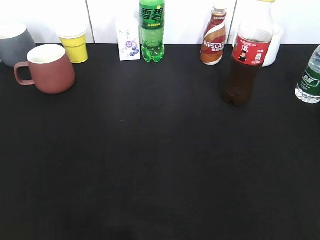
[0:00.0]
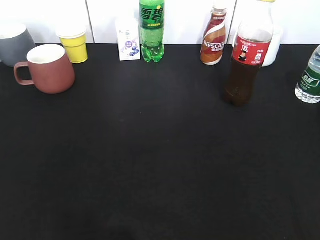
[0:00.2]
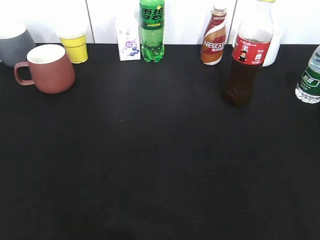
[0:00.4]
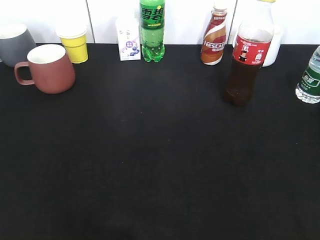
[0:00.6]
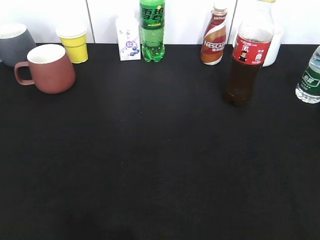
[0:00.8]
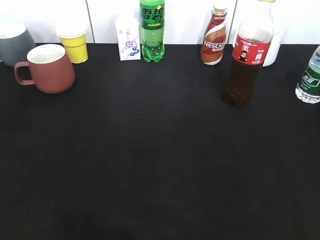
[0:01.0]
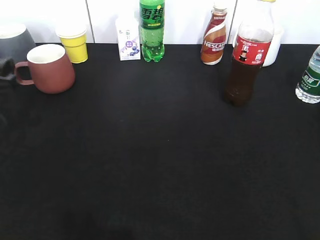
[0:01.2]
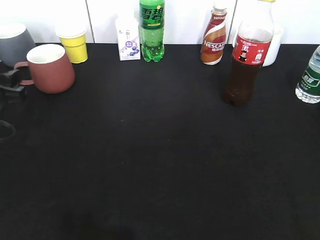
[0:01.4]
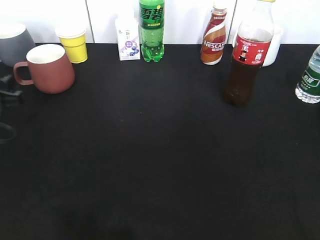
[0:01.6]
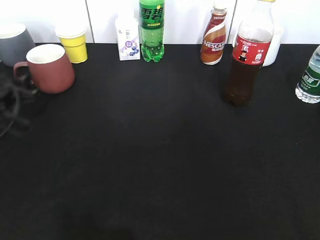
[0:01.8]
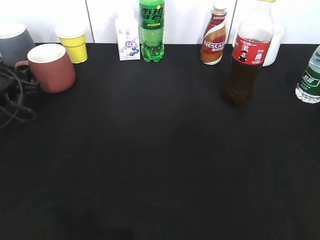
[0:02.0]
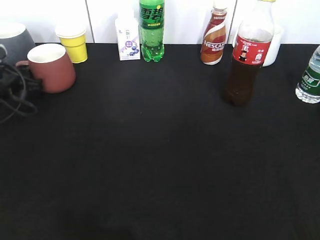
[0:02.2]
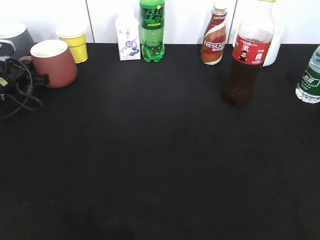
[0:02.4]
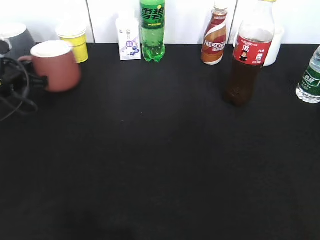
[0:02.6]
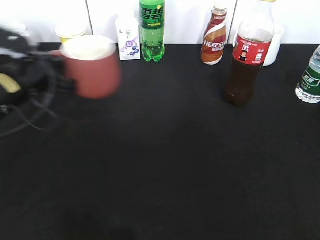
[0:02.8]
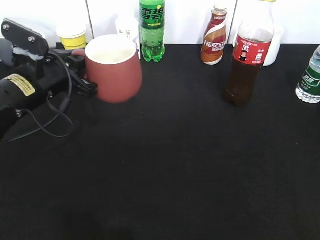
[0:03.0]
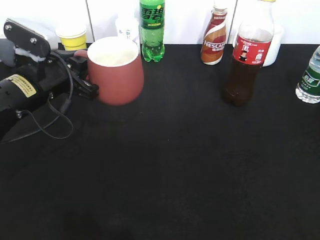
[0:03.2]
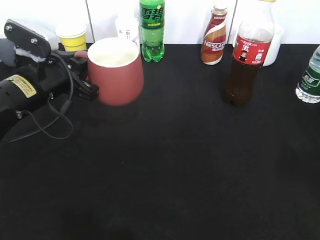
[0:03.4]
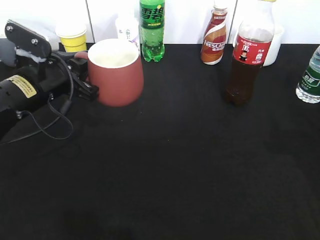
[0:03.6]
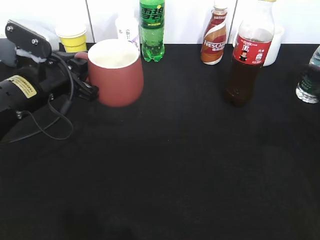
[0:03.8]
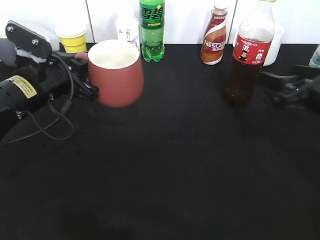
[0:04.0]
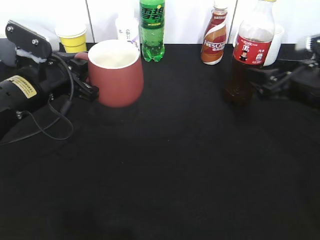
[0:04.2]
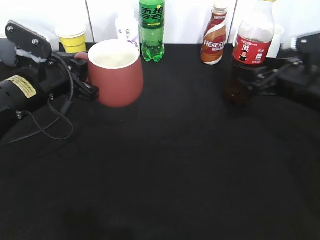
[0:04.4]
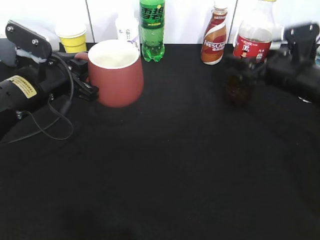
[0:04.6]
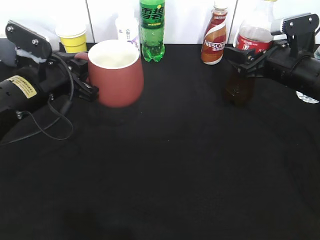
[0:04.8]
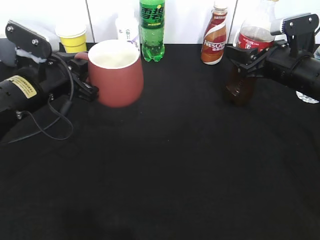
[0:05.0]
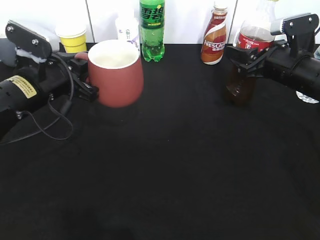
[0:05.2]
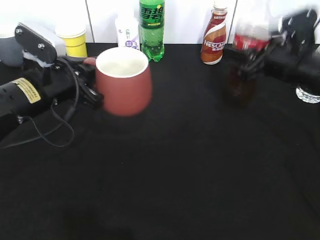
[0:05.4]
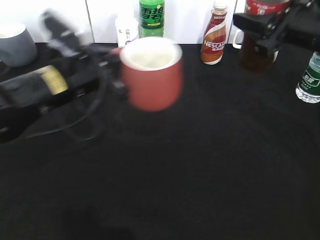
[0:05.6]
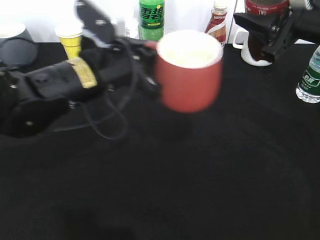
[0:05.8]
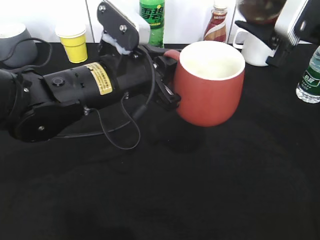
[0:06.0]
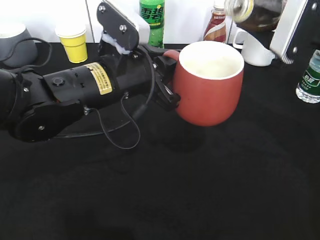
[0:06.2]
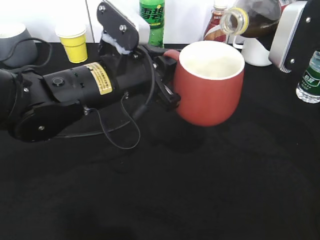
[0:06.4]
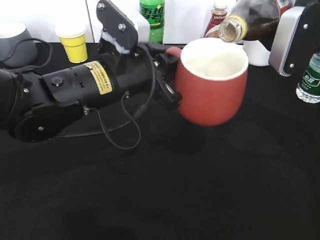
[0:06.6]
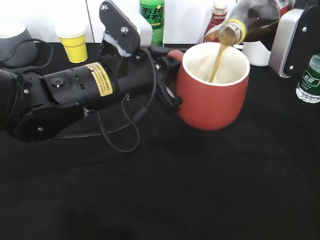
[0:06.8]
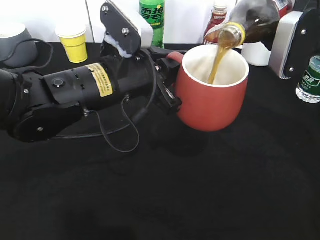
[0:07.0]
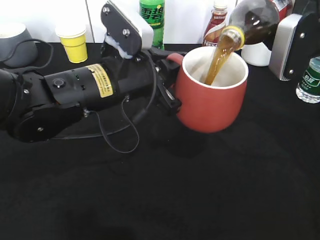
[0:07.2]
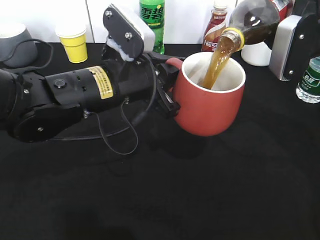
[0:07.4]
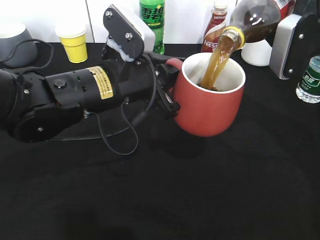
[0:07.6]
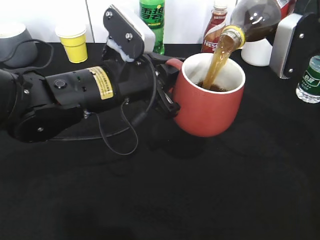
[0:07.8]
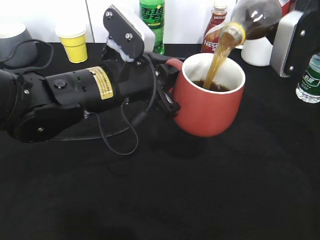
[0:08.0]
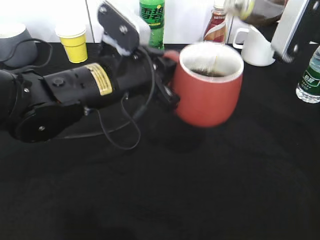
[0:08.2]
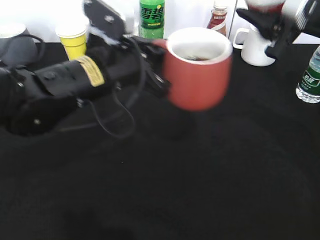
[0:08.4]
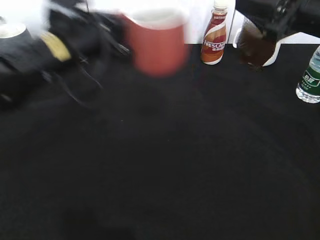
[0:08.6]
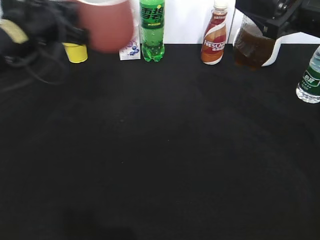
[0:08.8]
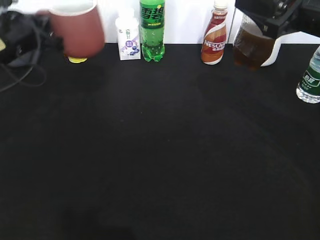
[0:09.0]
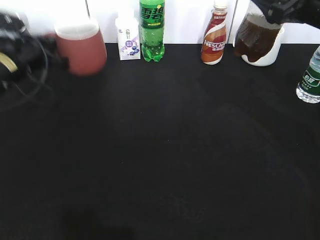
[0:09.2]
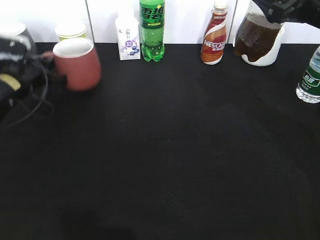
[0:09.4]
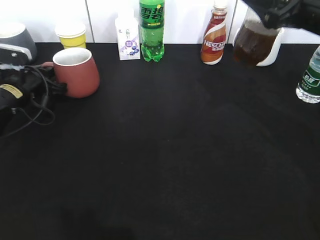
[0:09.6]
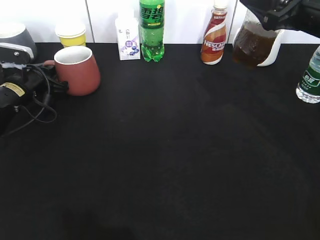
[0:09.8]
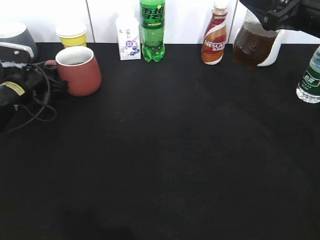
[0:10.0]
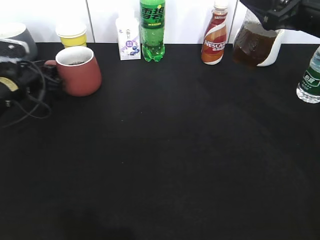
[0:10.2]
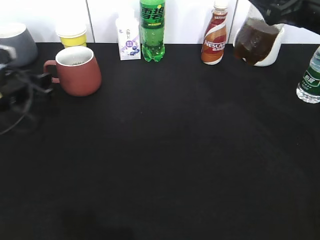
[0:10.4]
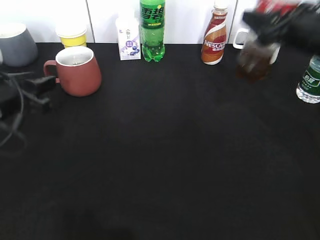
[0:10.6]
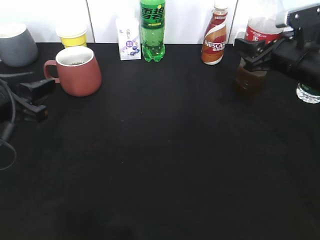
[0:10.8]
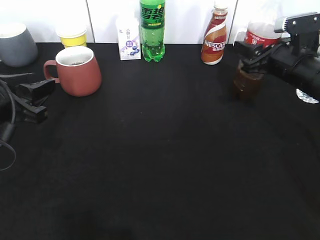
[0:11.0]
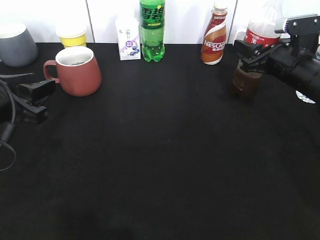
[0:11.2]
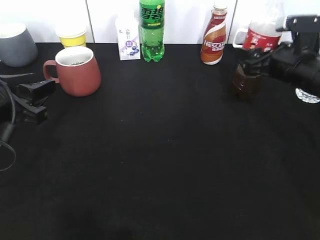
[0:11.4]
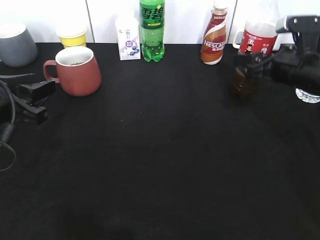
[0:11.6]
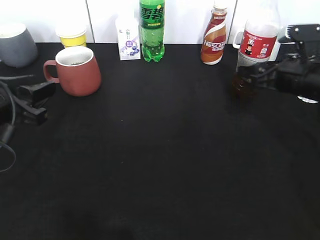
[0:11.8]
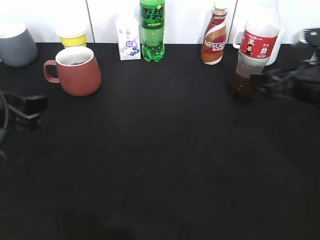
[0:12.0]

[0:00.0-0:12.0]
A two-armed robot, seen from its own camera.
Step, 2.6 to 3.6 s: Lift the red cup with left gripper.
Step, 3.8 to 5.2 s: Grasp the bottle with cola with right gripper.
Step, 5.4 to 8.2 s: Pour the cola from bottle to cup with right gripper.
Step, 8.4 to 11.8 s: Place the cola bottle on the table with right gripper.
0.0 to 1.6 s: The left gripper shifts roughly 30 cm forward and downward, and opens.
1.6 to 3.0 s: The left gripper travels to the right by about 10 cm, and closes.
3.0 to 4.4 s: The right gripper shifts approximately 35 cm forward, and opens up.
4.4 to 6.0 s: The left gripper travels to the right by about 10 cm. Meanwhile the right gripper shifts about 10 cm upward, and closes.
7.6 to 9.0 s: The left gripper goes approximately 20 cm to the left and forward.
9.0 to 10.4 s: The left gripper moves downward, roughly 10 cm, and opens up.
10.4 to 12.0 s: The right gripper heads downward, covering about 10 cm, and opens up. Meanwhile the left gripper shifts approximately 10 cm backward and upward.

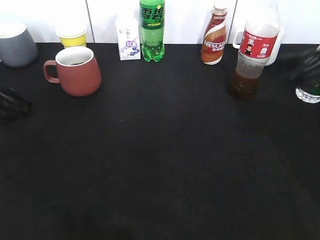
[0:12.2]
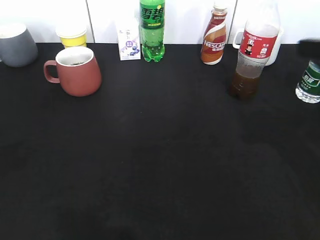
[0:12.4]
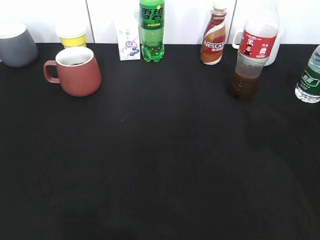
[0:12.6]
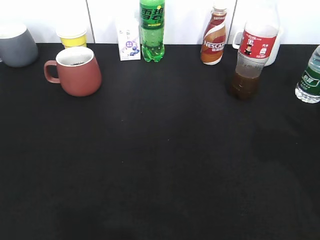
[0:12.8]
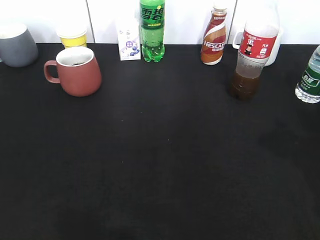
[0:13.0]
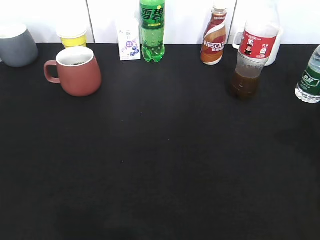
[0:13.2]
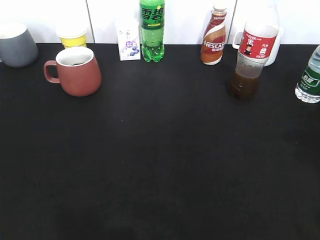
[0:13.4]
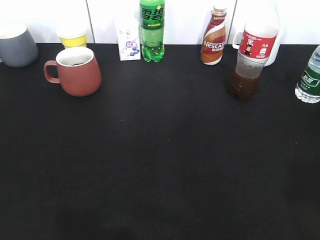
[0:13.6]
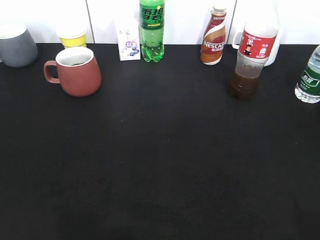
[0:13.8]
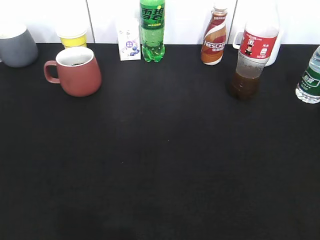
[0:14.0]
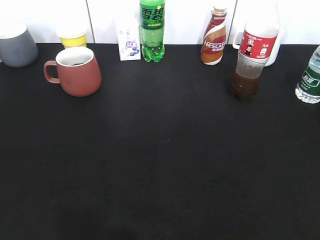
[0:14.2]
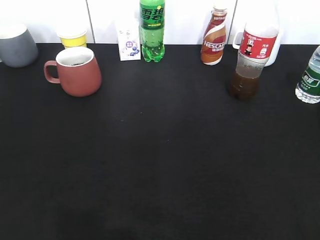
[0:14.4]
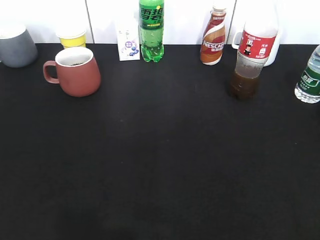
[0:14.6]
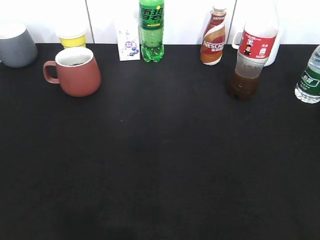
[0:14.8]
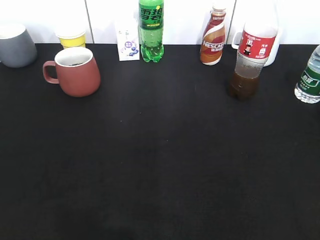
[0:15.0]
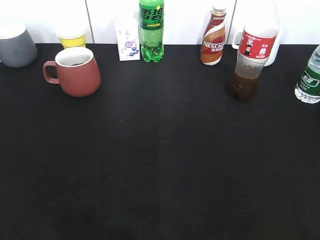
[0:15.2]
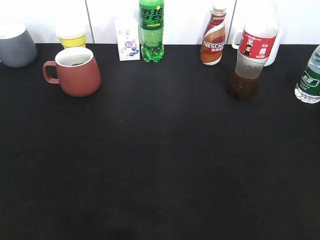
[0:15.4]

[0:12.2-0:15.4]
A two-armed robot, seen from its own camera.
12.2 to 13.8 s: Both grippers move backward, approximately 20 cm.

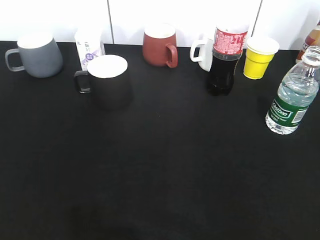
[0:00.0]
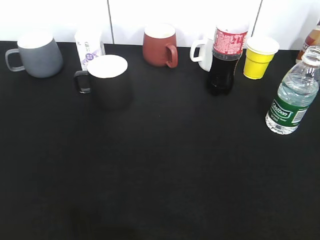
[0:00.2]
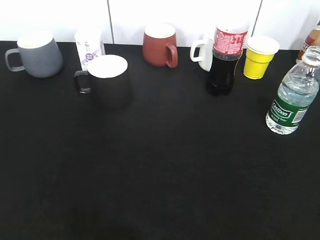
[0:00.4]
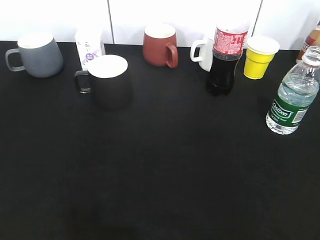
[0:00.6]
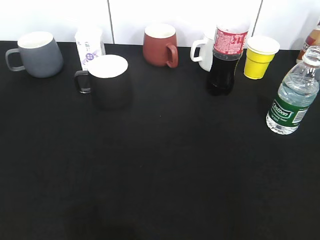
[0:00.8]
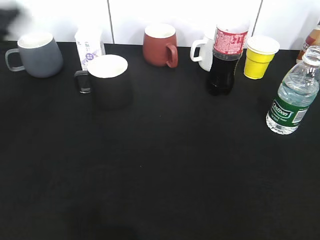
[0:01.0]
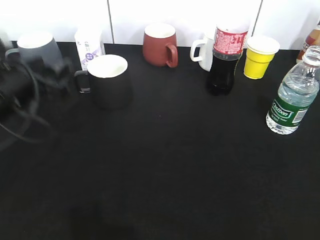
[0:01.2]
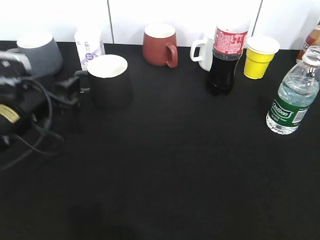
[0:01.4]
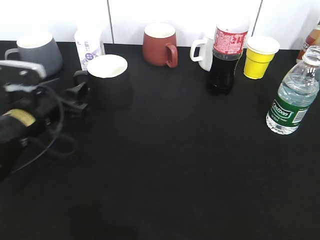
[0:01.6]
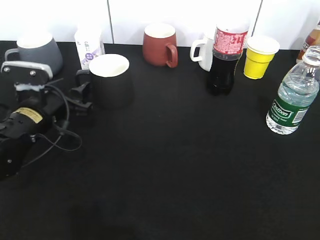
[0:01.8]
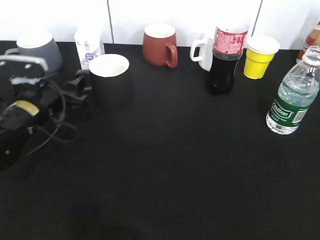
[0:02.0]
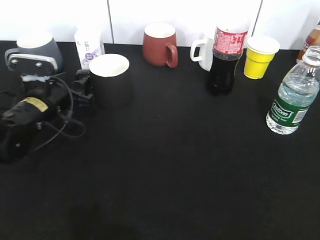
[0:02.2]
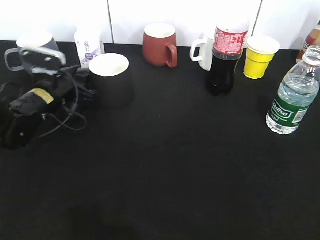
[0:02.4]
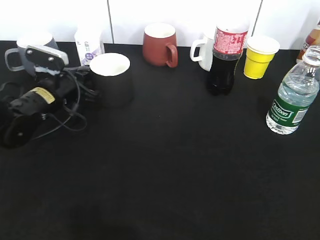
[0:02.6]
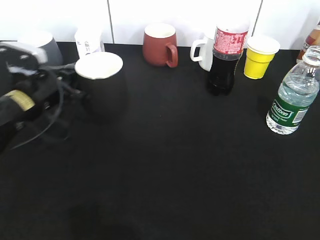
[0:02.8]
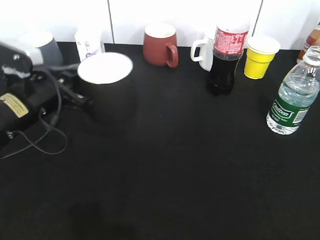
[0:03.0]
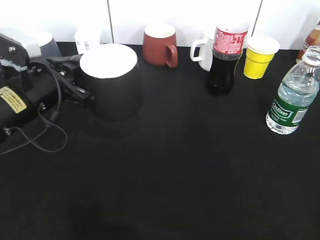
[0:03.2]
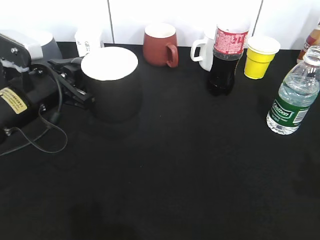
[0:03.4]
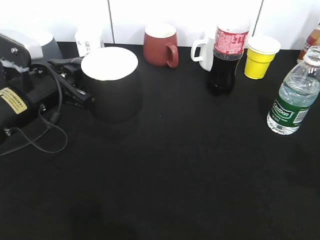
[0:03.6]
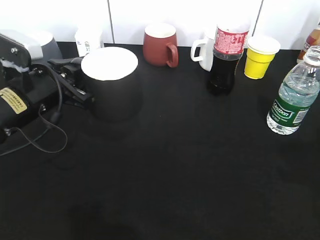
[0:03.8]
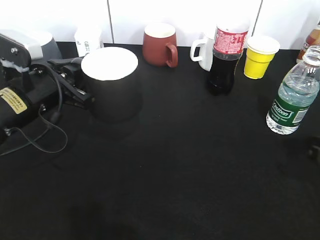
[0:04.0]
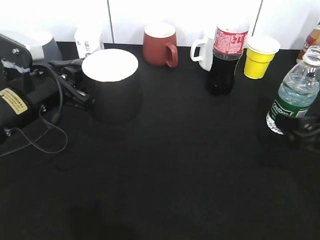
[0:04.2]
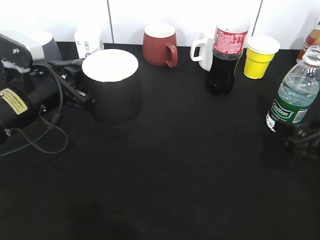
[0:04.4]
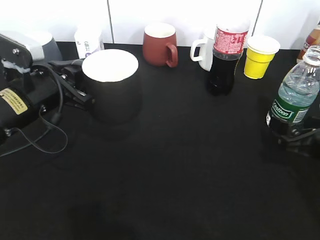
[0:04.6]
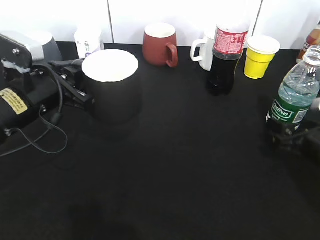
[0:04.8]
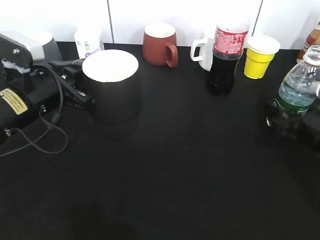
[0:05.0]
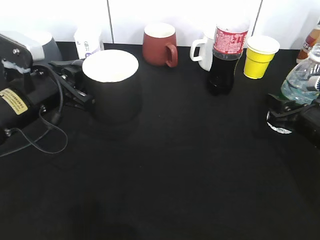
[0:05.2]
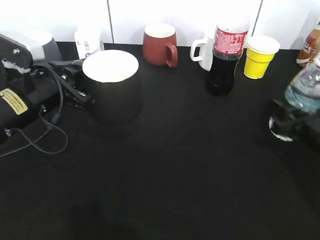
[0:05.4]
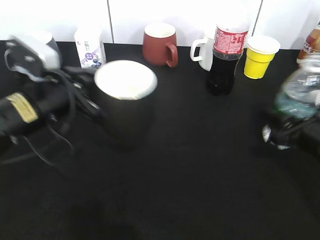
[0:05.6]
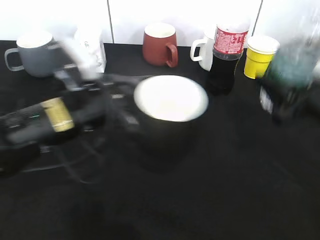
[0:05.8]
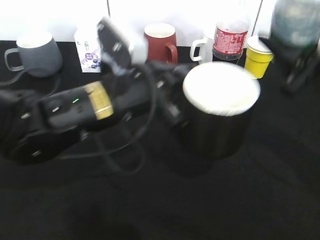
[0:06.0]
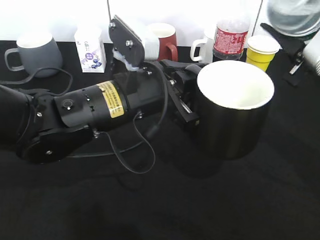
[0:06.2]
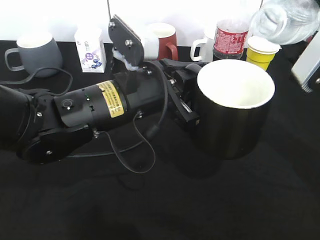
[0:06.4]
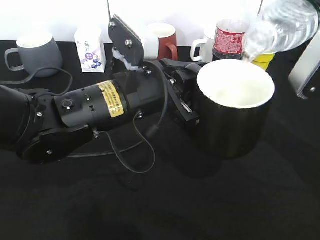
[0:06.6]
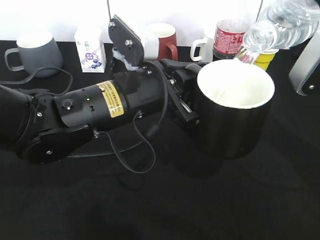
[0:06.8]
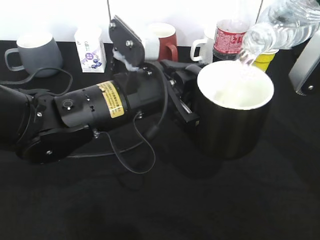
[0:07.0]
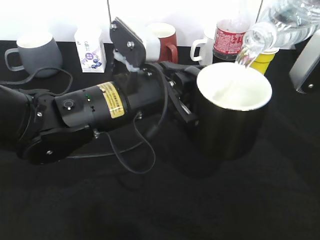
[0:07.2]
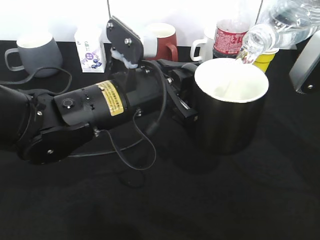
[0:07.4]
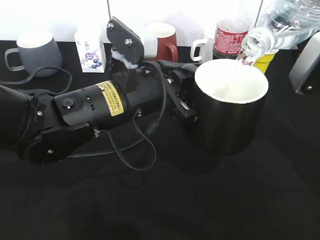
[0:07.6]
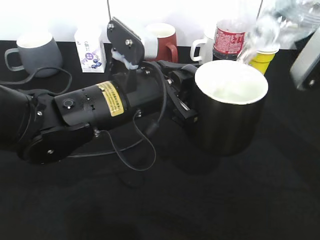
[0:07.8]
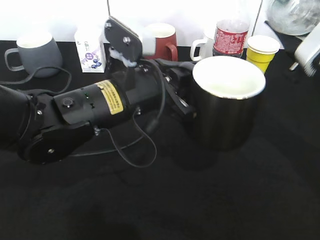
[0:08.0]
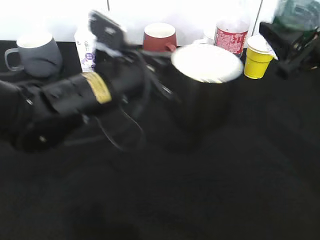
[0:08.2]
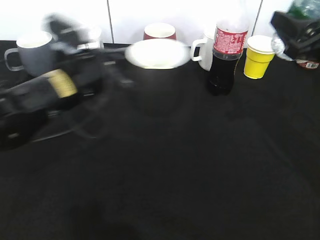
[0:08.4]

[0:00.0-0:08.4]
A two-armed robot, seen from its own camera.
Step, 0.0 to 2.2 s: Grasp the black cup with left gripper.
Step, 2.6 to 3.0 s: Lift the black cup with left gripper.
Step, 3.2 to 5.0 s: Grasp the bottle with water with right gripper.
Step, 5.4 to 8.0 s: Pour the water from bottle to cup with right gripper.
0.0 to 1.4 s: The left gripper goes about 30 cm forward and downward.
1.4 to 2.8 s: The left gripper closes.
2.8 to 4.2 s: The right gripper travels forward and downward by some 25 cm, and opens its fingers, while the left gripper changes place by about 5 cm.
4.2 to 5.6 s: The right gripper closes its fingers.
5.6 to 7.0 s: The right gripper shifts about 15 cm upward. Meanwhile the left gripper heads to the right, covering roughly 10 cm.
7.0 to 8.4 s: The left gripper goes about 10 cm to the left and forward.
